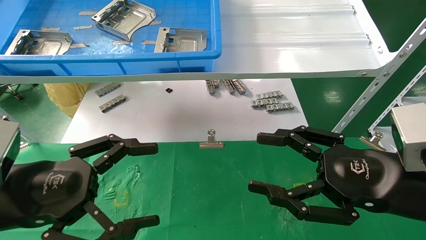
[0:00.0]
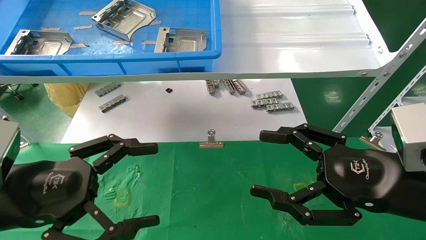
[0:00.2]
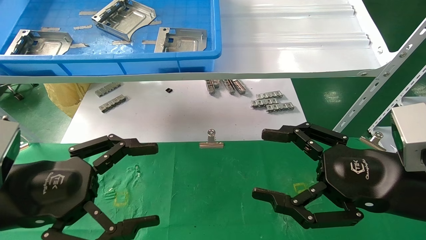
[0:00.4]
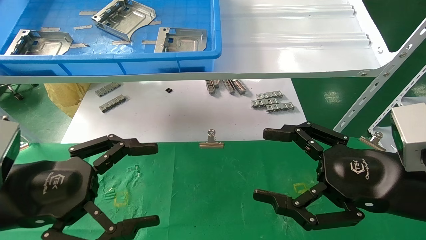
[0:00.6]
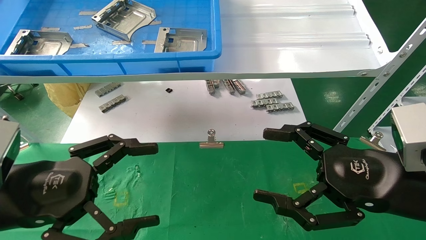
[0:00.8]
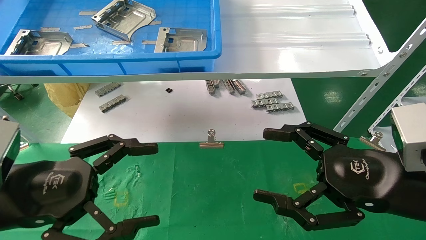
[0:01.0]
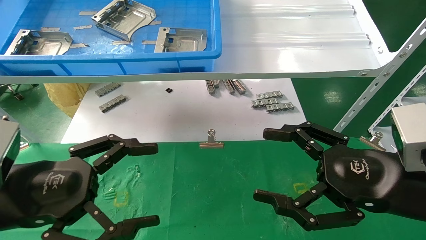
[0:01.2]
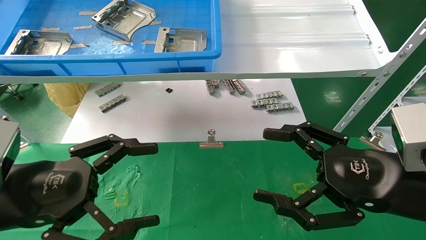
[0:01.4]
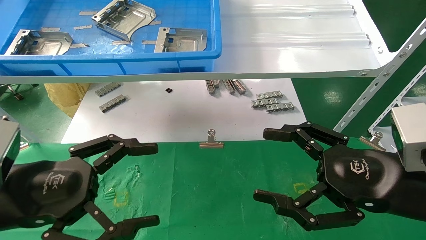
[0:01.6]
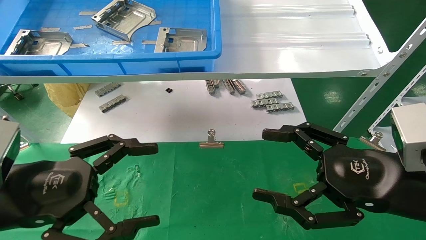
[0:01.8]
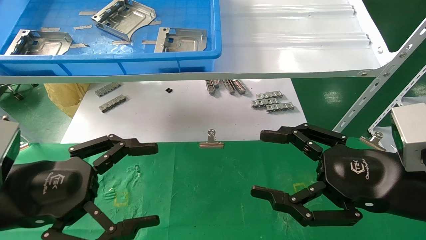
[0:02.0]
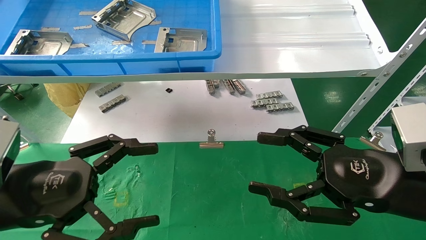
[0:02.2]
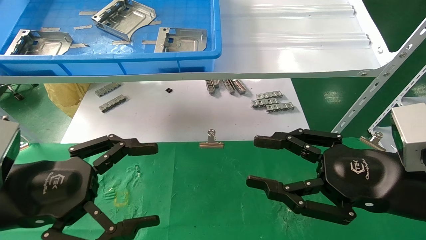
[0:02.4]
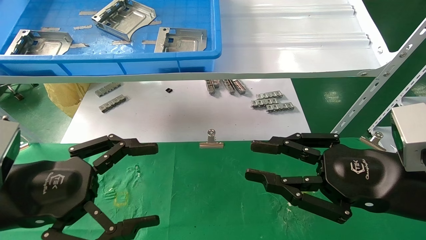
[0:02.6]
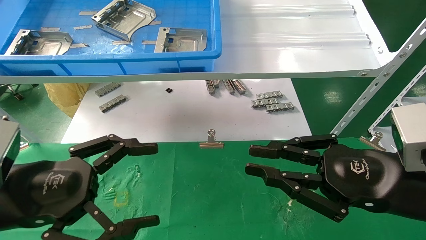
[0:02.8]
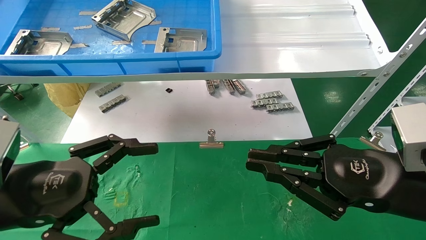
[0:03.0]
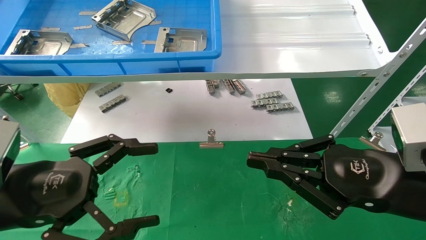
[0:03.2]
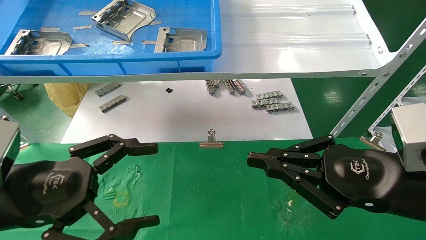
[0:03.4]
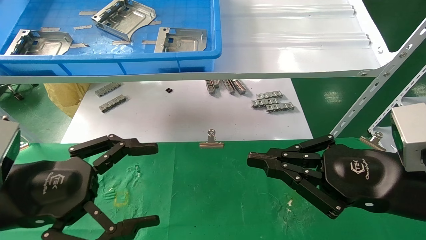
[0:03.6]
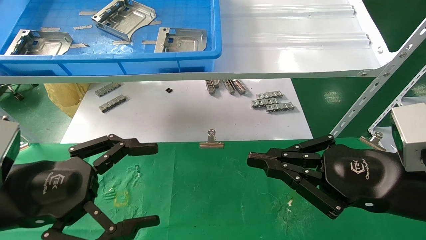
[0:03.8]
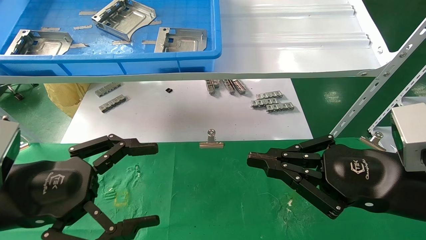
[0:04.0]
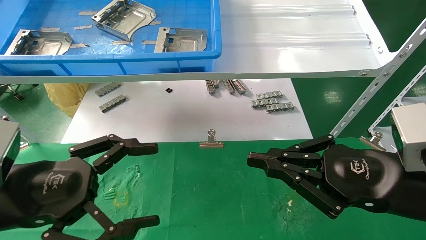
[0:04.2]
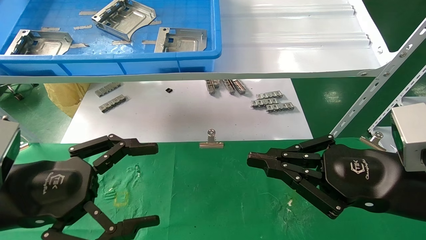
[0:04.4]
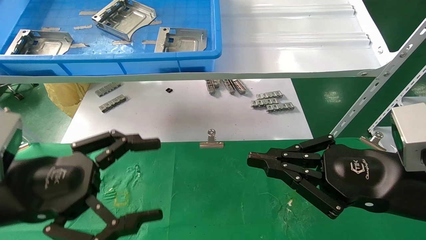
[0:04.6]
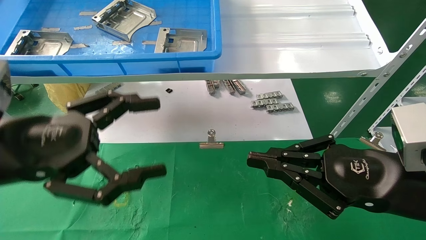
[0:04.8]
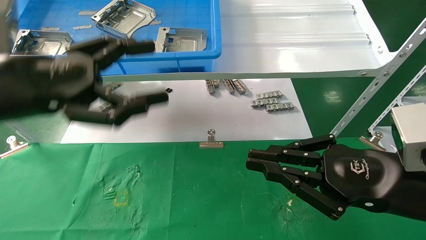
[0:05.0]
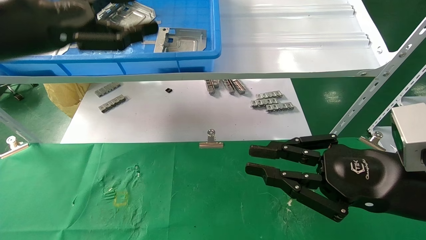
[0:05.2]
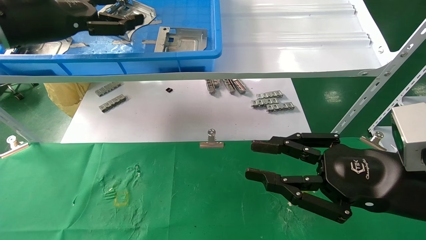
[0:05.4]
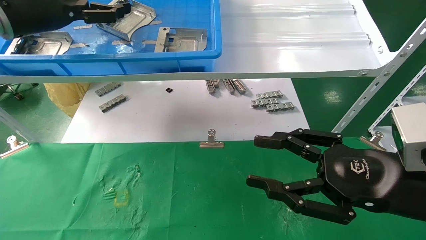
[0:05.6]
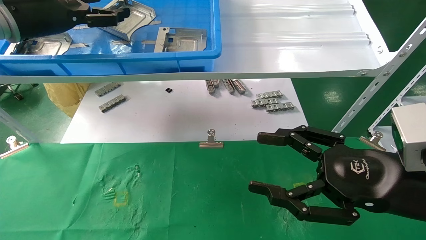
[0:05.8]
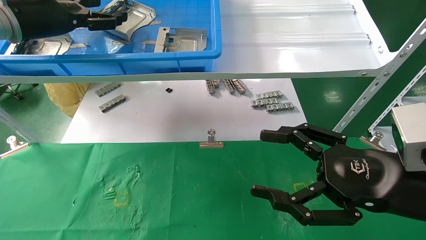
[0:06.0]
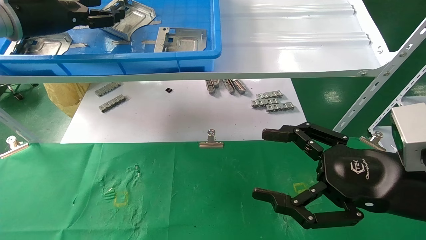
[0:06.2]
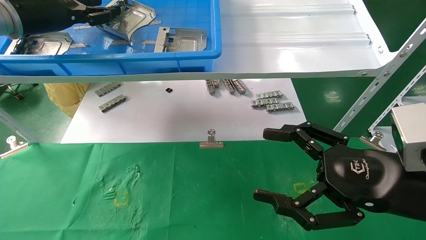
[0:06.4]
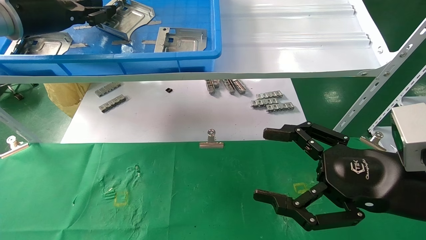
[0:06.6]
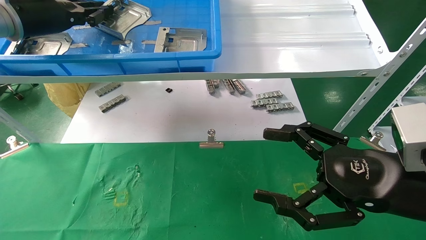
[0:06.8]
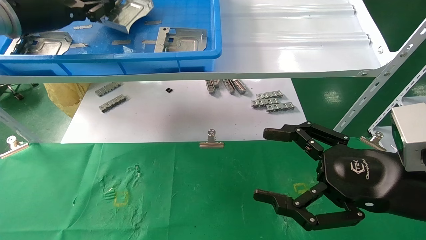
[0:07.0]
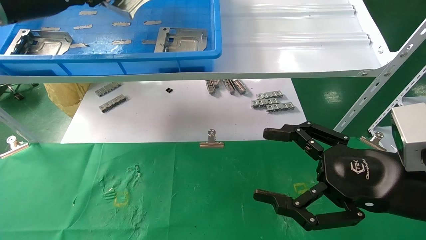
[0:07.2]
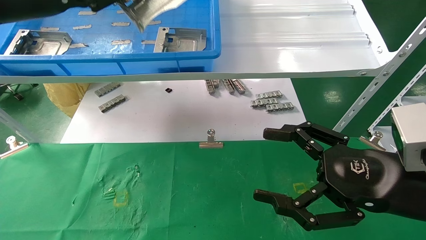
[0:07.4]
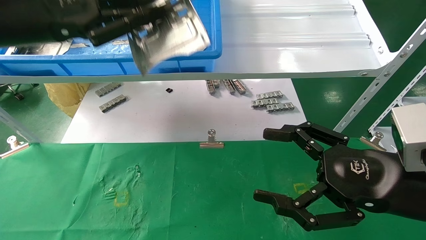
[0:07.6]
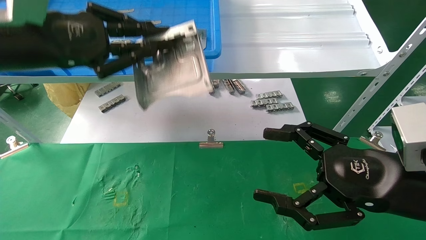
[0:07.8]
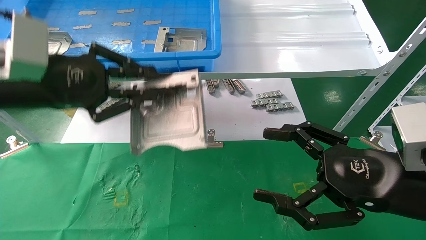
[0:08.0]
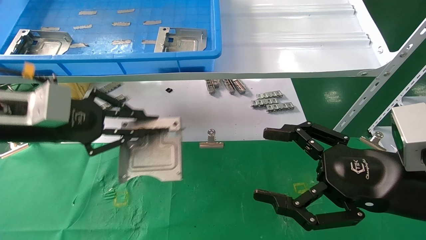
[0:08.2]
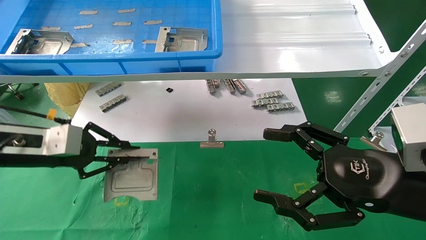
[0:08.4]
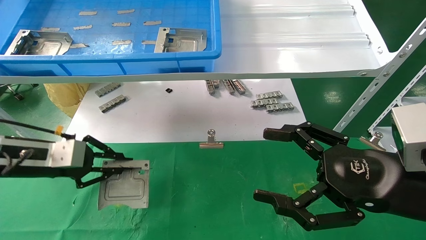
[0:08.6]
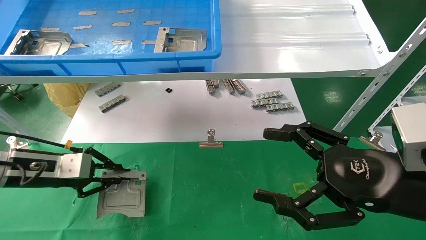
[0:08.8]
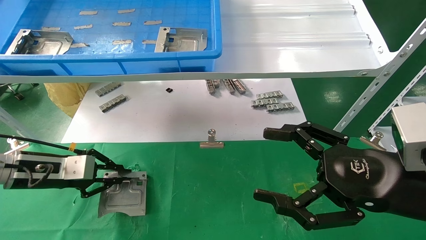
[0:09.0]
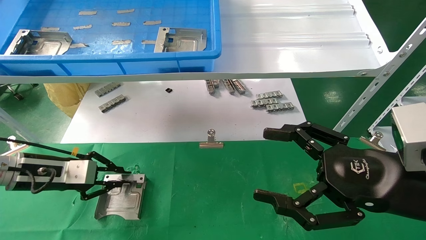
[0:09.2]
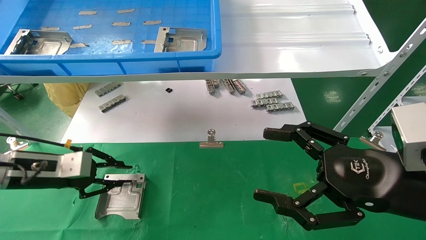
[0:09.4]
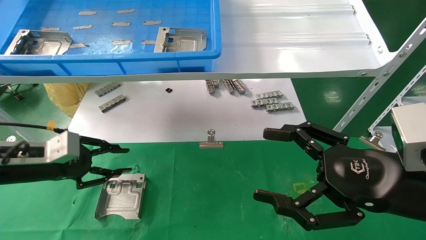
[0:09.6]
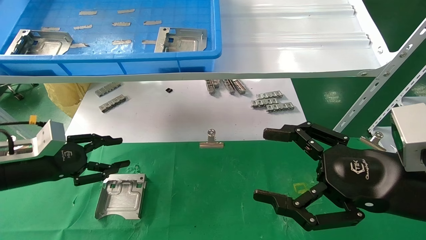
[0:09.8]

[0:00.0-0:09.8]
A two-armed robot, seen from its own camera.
Task of the whole recording: use the mechanical arm to pick up the parts and place them on the table.
Step, 0:04.8 to 0:06.8: Pick up the hard drive bracket from the feeding area.
Step, 0:07.0 to 0:09.4: Place the hard drive bracket into the box.
0:00.0 to 0:01.4: Both grippers stay about where they are.
0:01.4 to 0:02.8: The right gripper closes up.
0:02.8 to 0:04.2: Both grippers stay put.
0:04.2 to 0:05.6: The right gripper opens, while the left gripper is displaced upward and forward by approximately 30 cm.
0:05.6 to 0:07.0: The left gripper closes up. Meanwhile the right gripper opens.
0:07.0 to 0:08.4: The left gripper is displaced downward by about 20 cm.
0:08.4 to 0:09.8: The left gripper is displaced downward by approximately 5 cm, and opens.

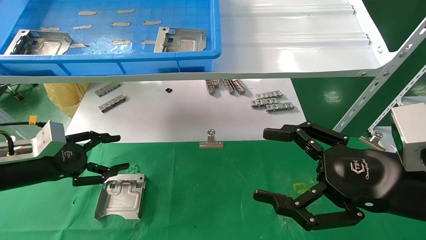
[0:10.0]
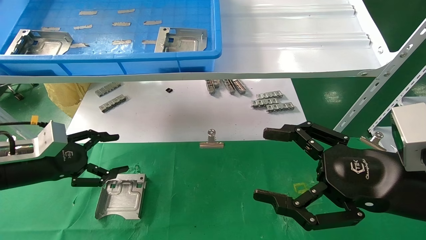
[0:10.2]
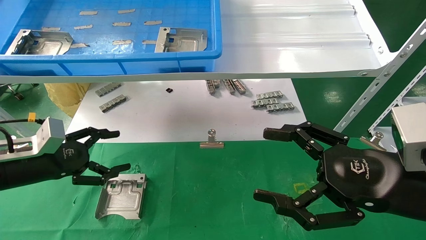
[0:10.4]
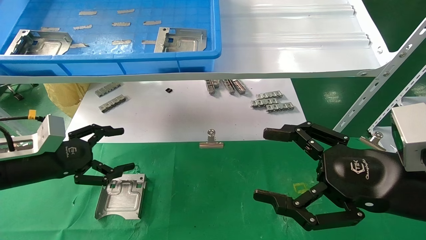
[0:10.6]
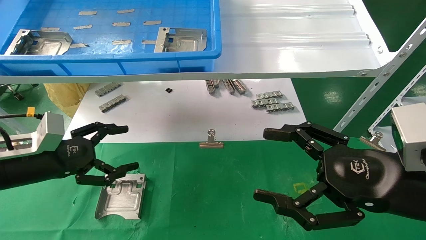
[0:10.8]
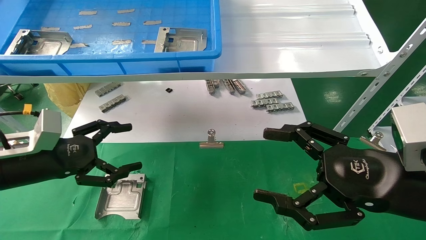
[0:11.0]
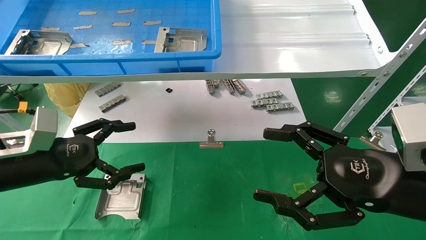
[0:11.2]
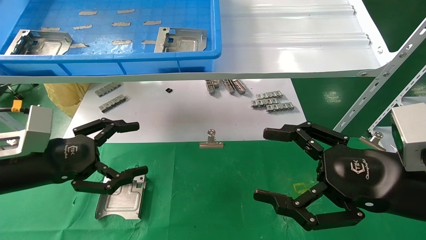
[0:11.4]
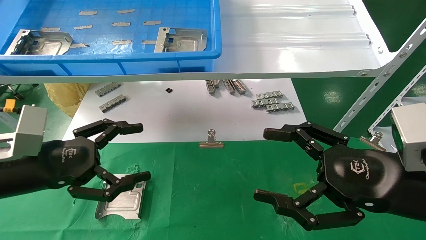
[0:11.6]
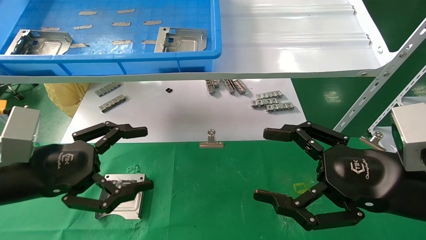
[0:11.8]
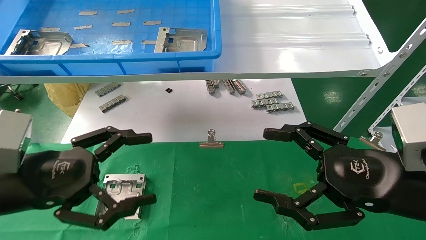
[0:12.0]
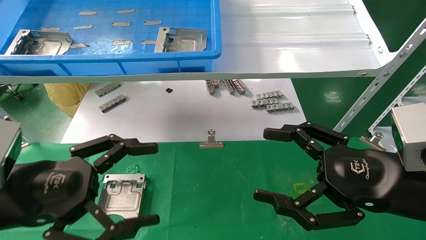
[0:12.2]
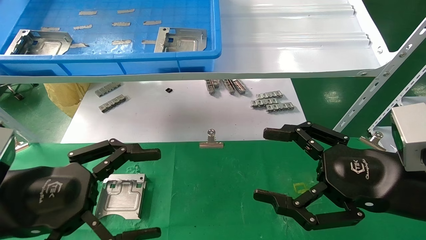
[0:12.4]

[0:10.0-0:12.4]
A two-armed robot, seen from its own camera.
Task of the whole recording: use the mechanical arm to pick up the parts and place them on the table.
0:10.0 to 0:11.2: The left gripper moves to the right, some 5 cm, and opens up.
0:11.2 to 0:12.4: The left gripper is displaced backward and to the right by roughly 10 cm.

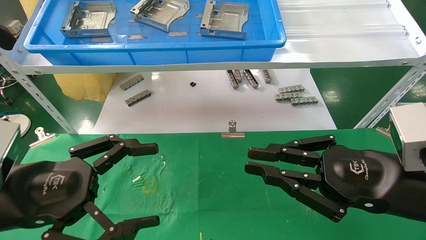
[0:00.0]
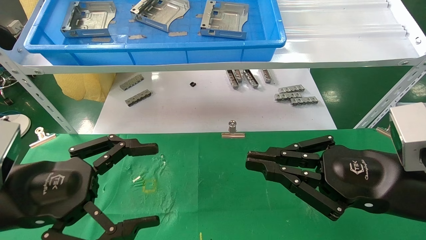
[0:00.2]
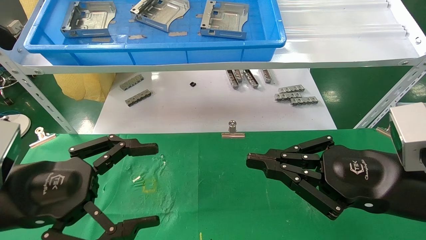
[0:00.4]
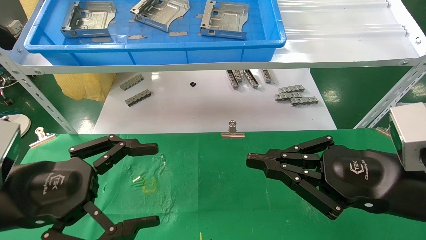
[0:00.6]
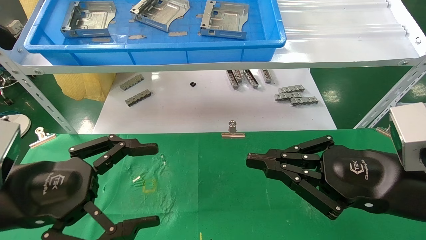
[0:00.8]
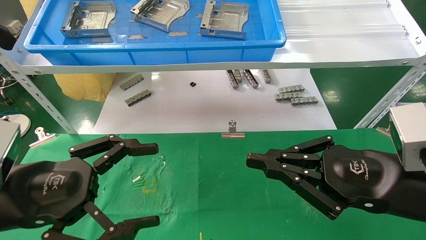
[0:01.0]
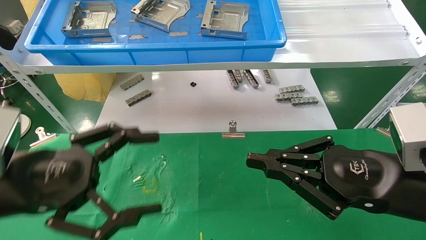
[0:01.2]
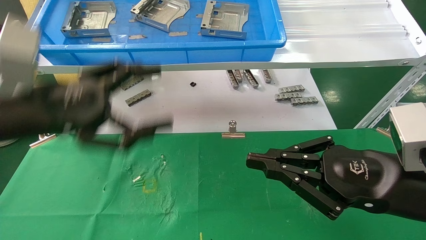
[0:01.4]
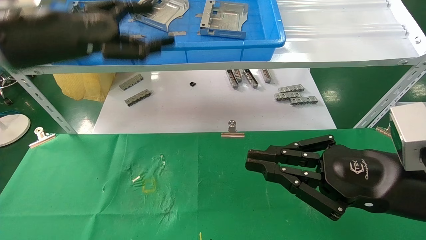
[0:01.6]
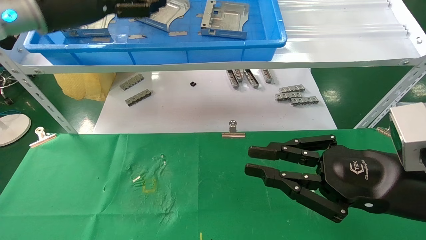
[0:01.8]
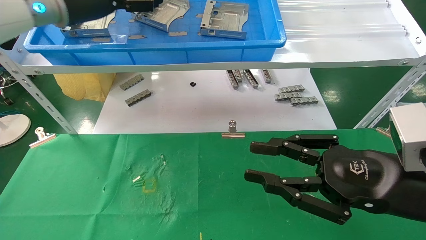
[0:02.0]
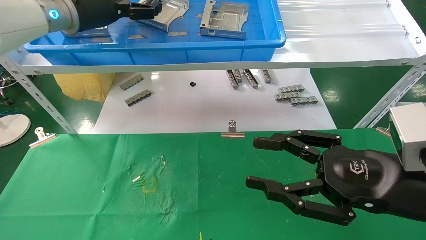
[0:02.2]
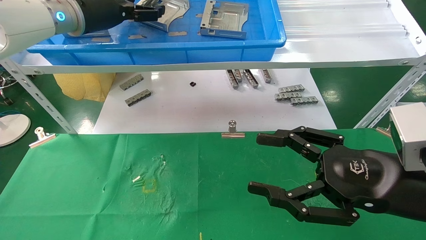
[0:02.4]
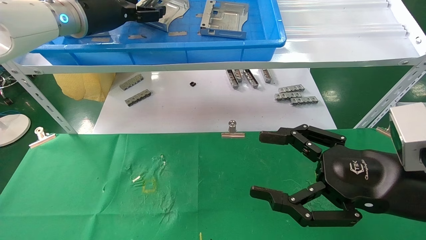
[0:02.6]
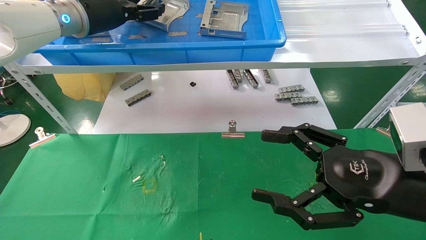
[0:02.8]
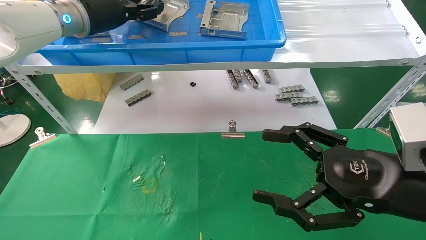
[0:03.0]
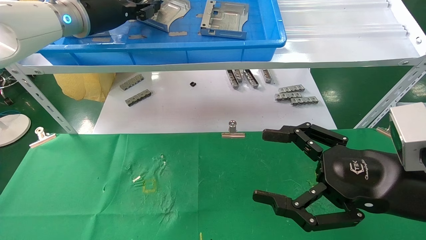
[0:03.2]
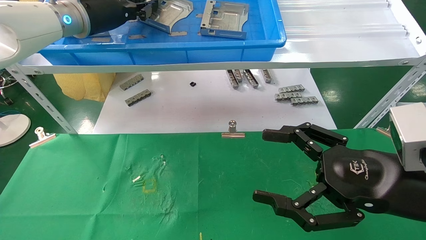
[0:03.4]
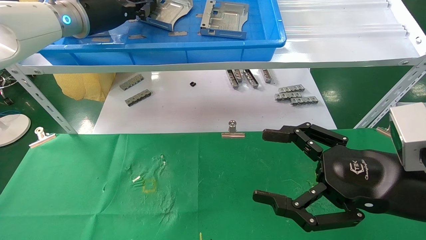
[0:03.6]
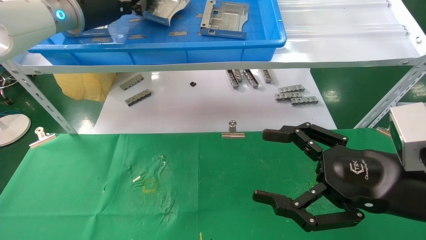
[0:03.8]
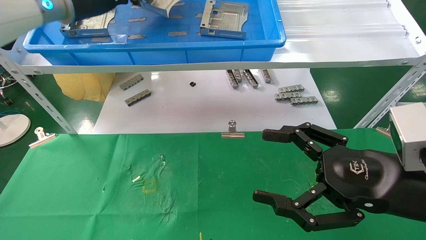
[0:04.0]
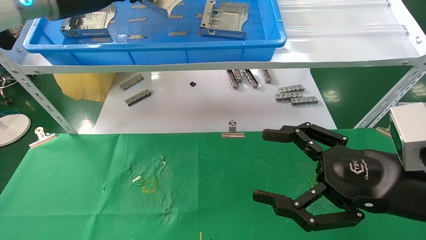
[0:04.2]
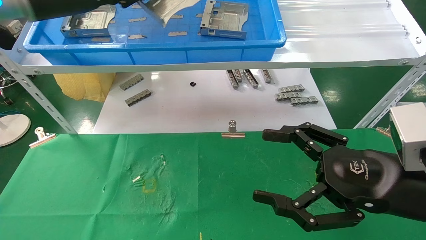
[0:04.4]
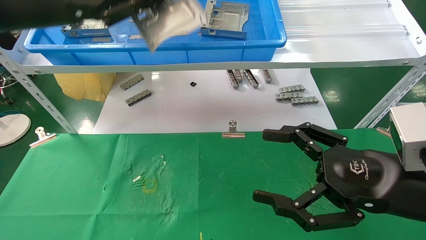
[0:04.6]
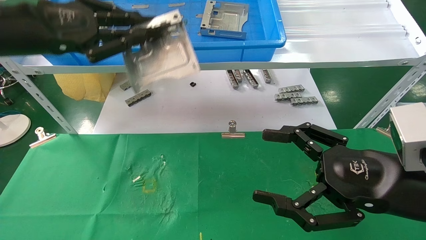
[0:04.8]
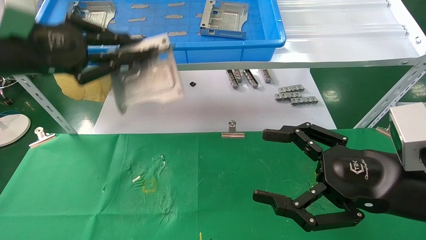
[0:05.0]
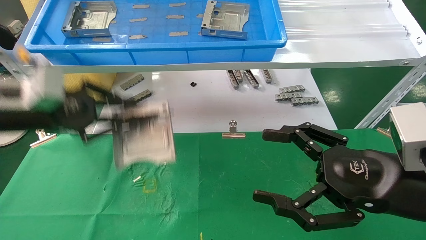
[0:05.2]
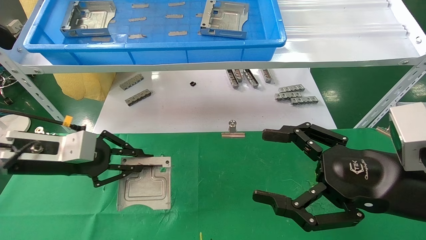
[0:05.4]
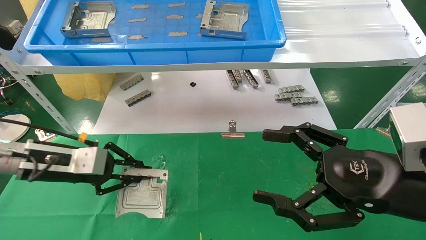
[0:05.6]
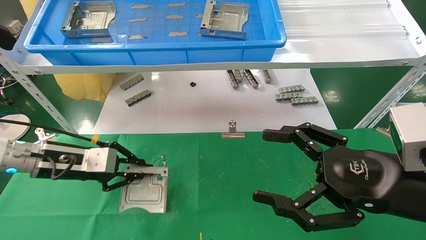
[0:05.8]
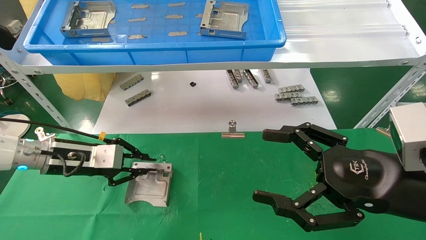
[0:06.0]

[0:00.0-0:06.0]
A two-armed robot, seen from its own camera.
Task of the whole recording: use the mechanical arm to pick up the parts and place them on the table.
Step, 0:01.6 to 0:03.4: Pick up the hard drive bracket from the feeding area.
0:00.0 to 0:01.6: The left gripper goes approximately 20 cm upward and forward.
0:01.6 to 0:03.0: The right gripper opens; the left gripper is displaced forward by roughly 10 cm, and closes up.
0:03.0 to 0:04.4: The left gripper goes roughly 10 cm backward, and closes.
0:04.4 to 0:06.0: The left gripper is displaced downward by roughly 25 cm.
